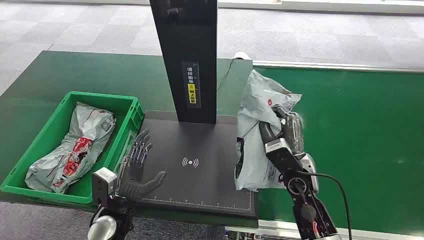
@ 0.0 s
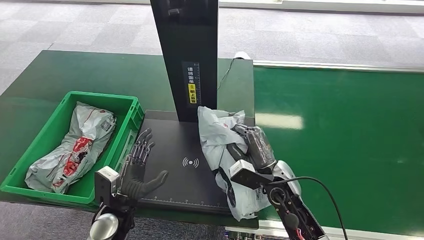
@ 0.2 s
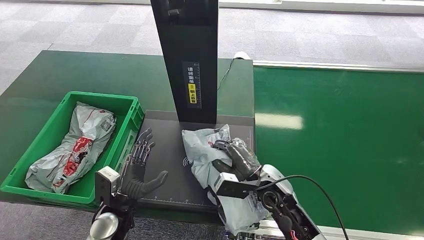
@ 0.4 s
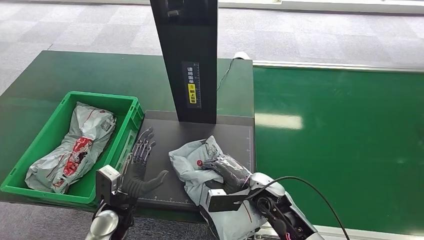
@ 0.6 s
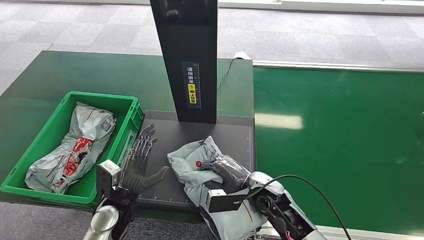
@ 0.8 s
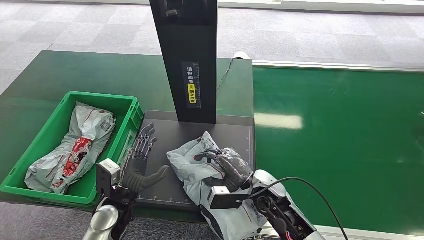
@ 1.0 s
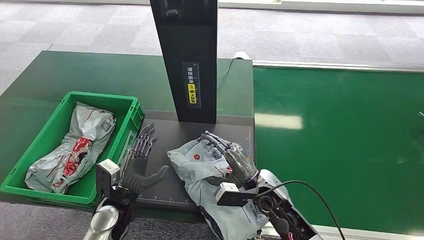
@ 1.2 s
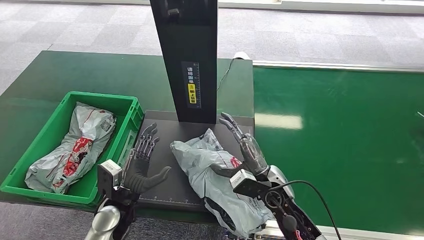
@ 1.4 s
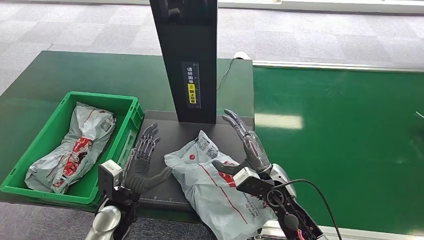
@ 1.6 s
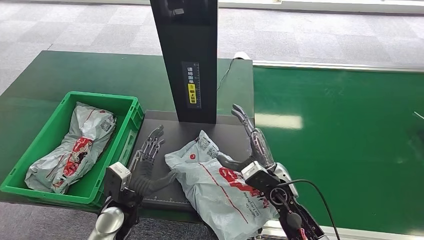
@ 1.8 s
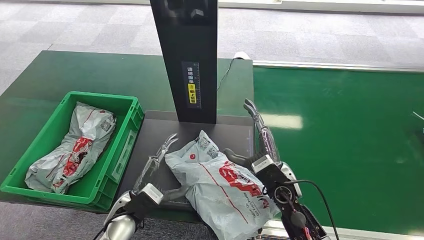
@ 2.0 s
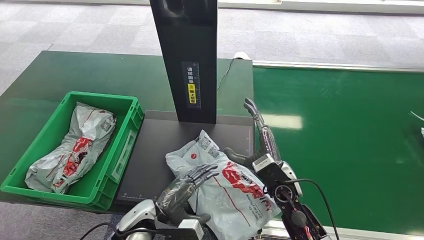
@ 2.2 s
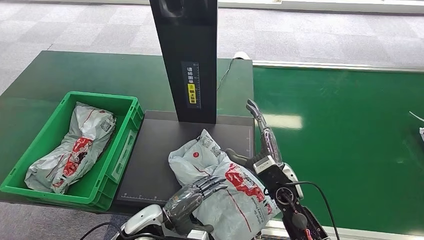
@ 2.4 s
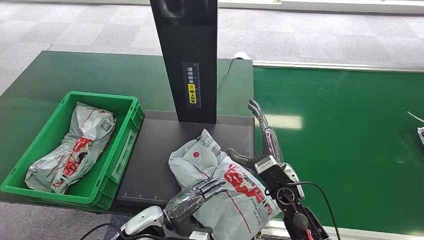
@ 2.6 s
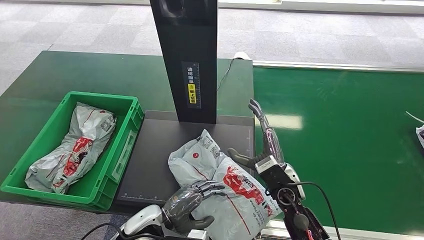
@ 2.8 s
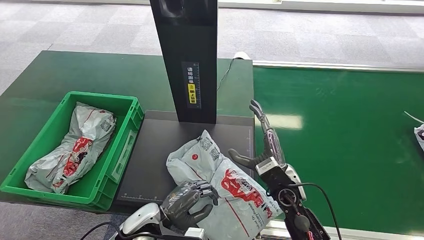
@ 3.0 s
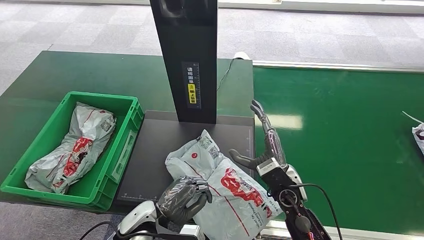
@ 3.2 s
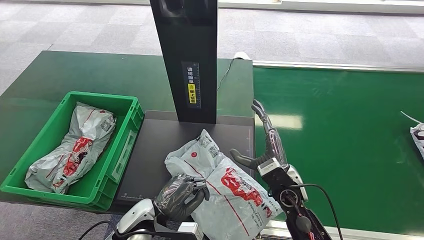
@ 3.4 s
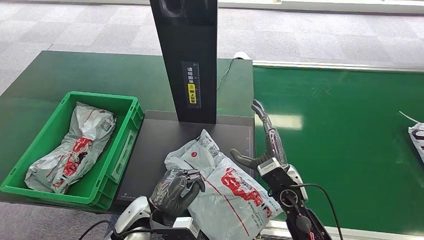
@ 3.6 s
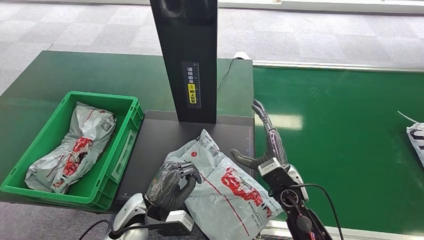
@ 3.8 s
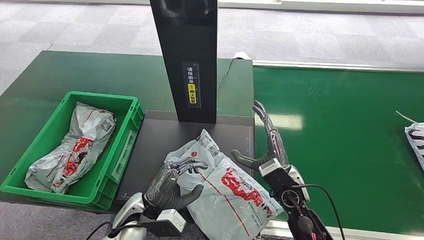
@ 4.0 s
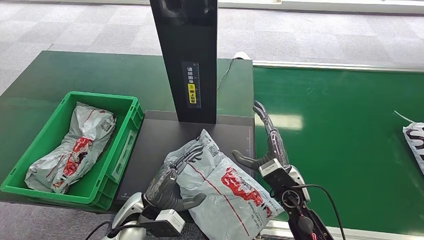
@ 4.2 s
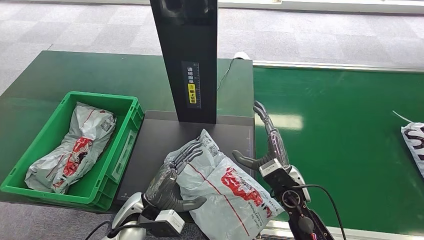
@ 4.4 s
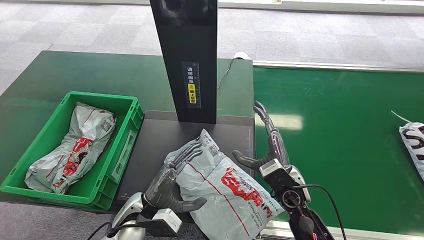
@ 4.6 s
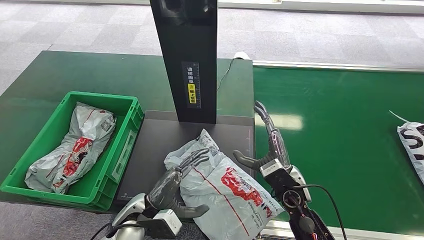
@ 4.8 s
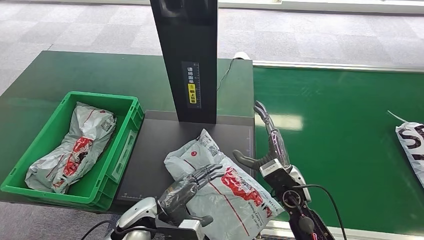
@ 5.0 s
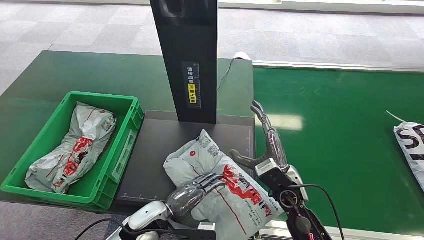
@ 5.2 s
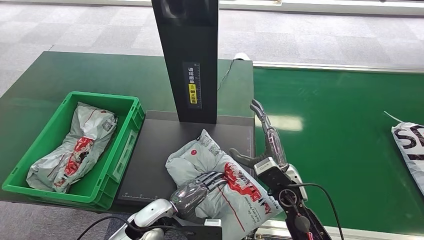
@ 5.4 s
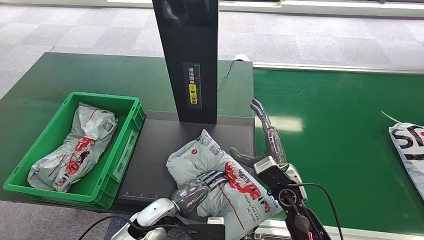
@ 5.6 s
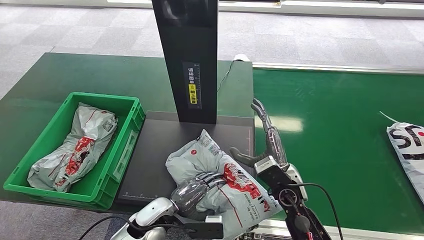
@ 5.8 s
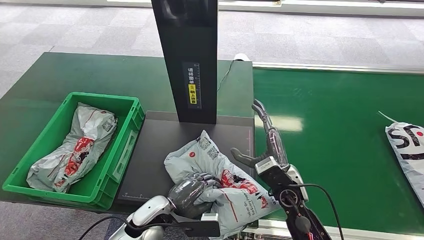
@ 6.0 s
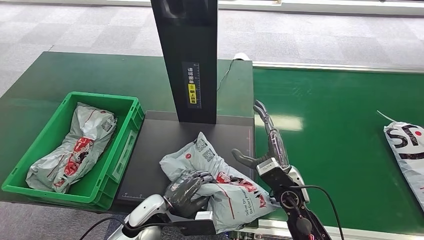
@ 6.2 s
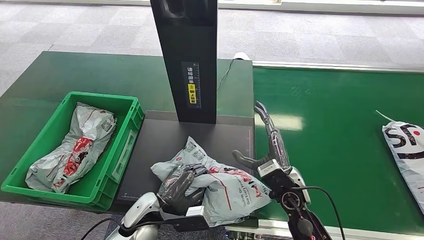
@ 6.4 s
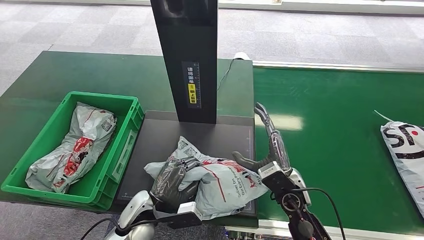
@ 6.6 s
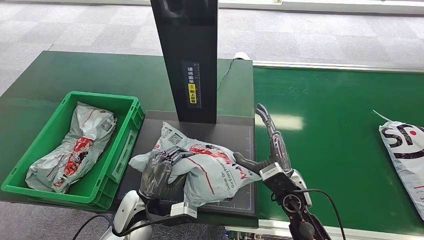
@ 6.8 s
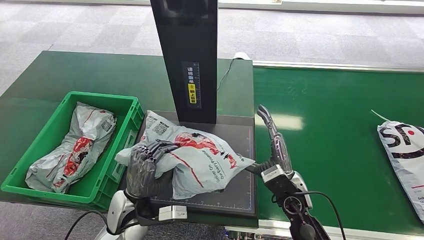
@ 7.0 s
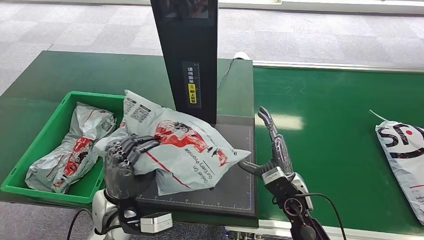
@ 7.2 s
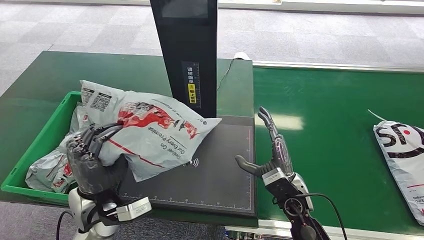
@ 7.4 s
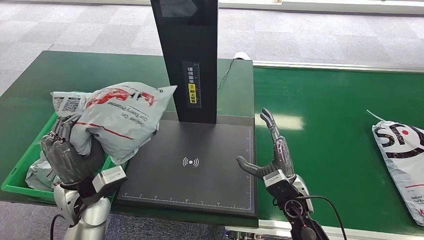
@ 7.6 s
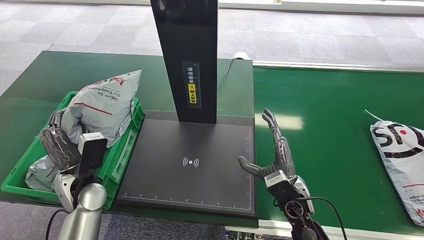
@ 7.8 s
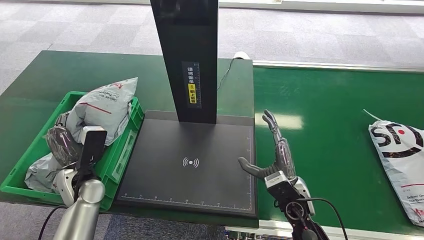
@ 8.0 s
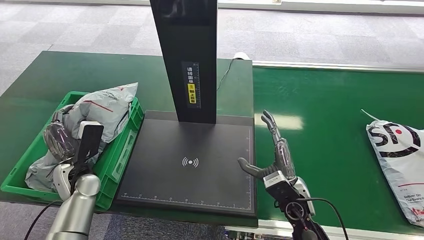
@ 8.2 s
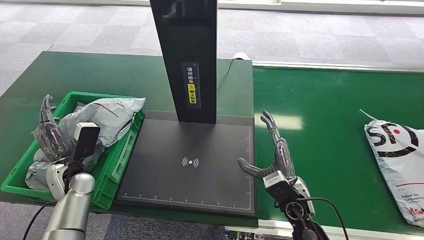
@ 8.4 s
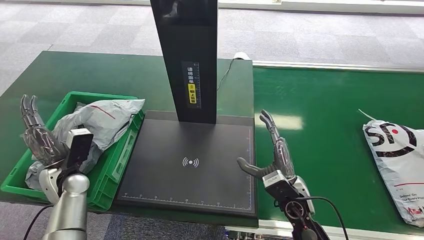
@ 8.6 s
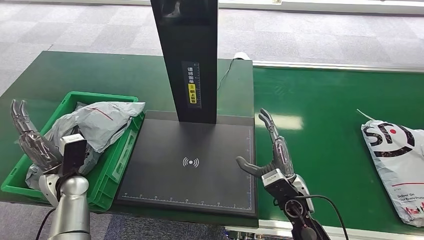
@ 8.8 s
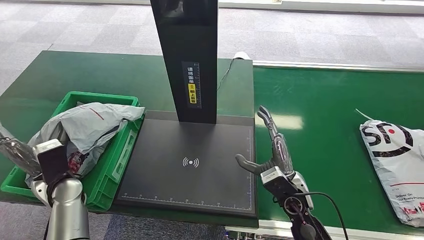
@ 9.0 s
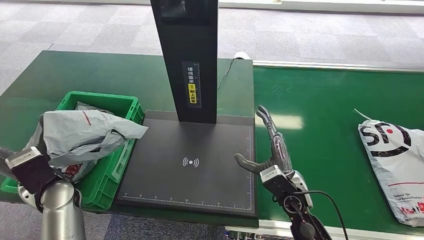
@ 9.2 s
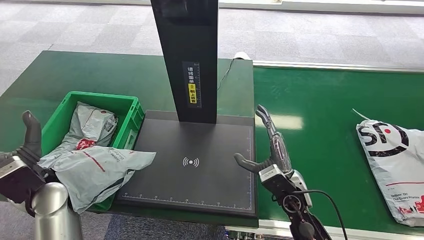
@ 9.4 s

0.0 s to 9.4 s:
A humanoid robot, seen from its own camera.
Step, 2.0 to 2.2 s: Place the package onto the inbound machine.
Step, 7.2 to 7.4 s: Pick up the package from the inbound machine.
1.6 to 3.2 s: The left hand shifts some 5 cm to the right.
7.8 to 9.4 s: The left hand shifts by about 5 cm.

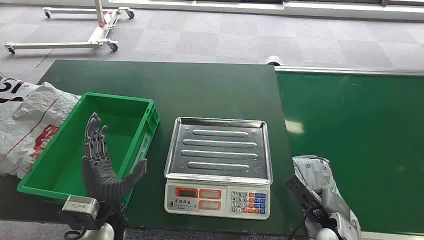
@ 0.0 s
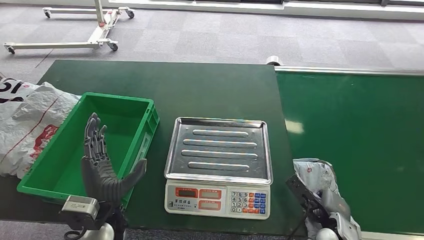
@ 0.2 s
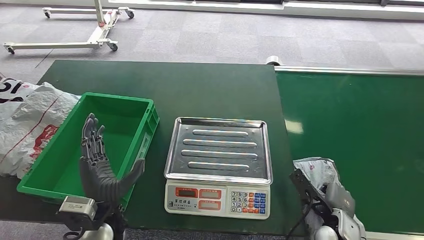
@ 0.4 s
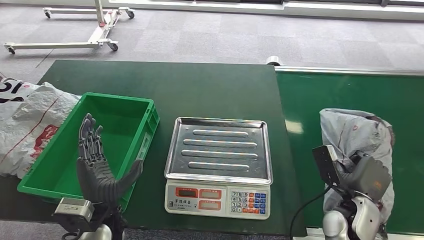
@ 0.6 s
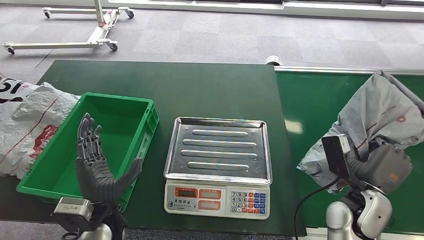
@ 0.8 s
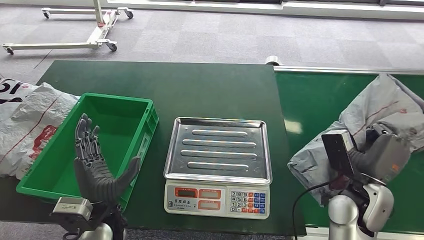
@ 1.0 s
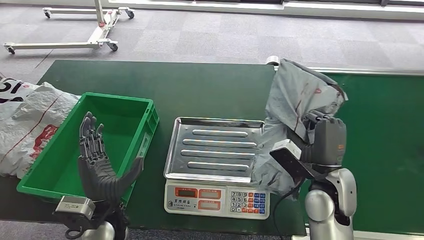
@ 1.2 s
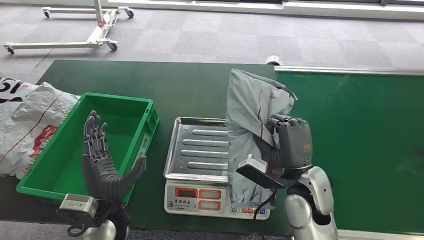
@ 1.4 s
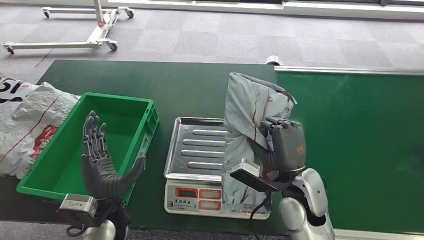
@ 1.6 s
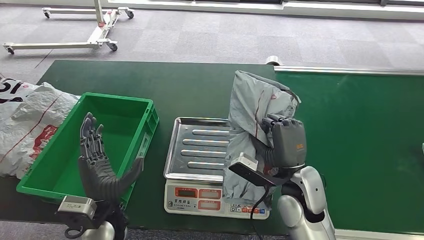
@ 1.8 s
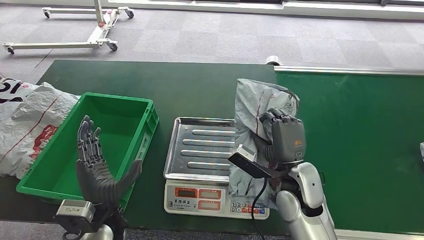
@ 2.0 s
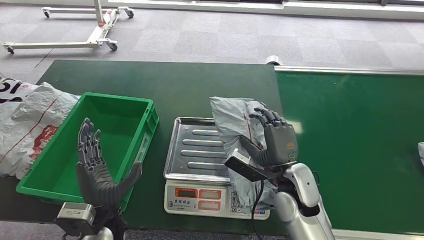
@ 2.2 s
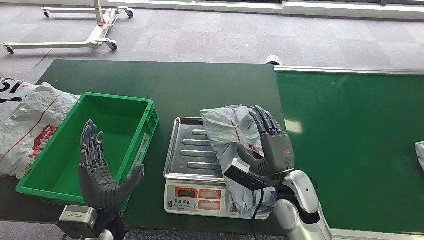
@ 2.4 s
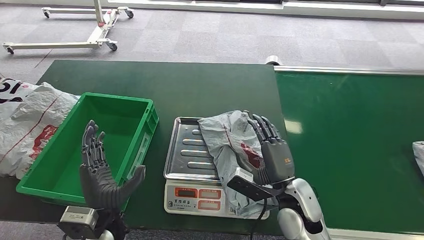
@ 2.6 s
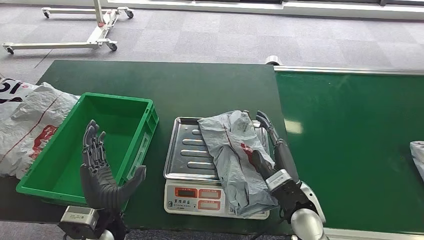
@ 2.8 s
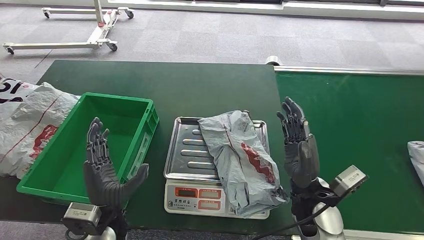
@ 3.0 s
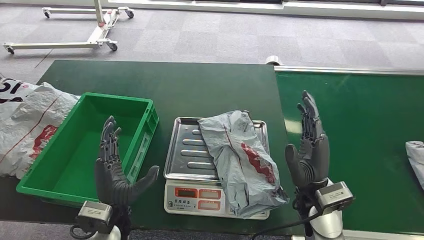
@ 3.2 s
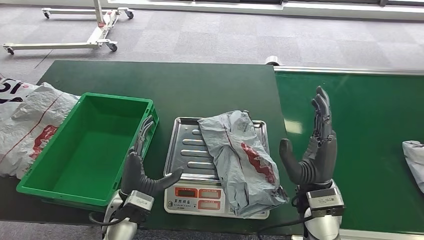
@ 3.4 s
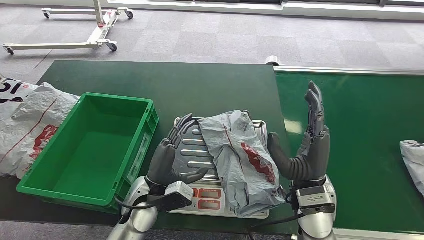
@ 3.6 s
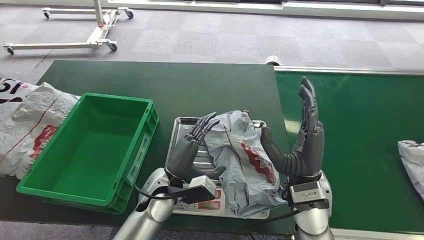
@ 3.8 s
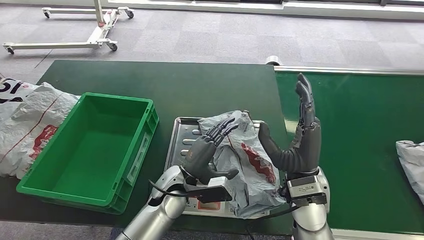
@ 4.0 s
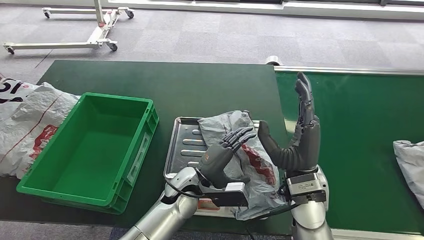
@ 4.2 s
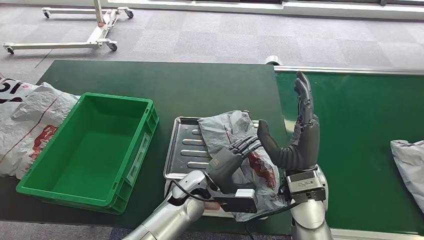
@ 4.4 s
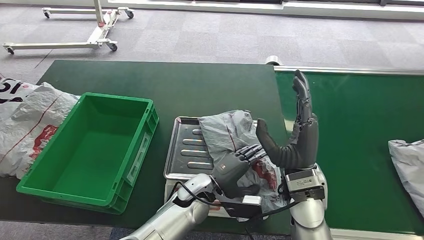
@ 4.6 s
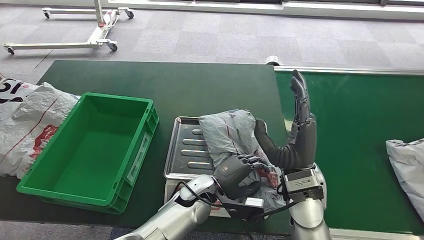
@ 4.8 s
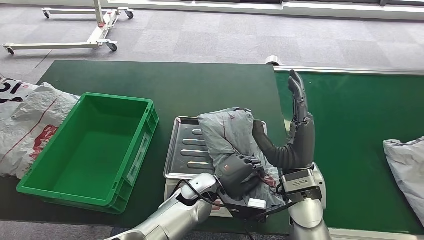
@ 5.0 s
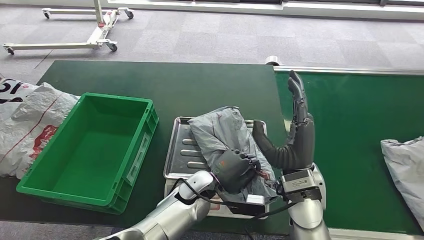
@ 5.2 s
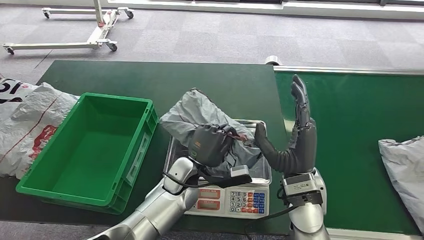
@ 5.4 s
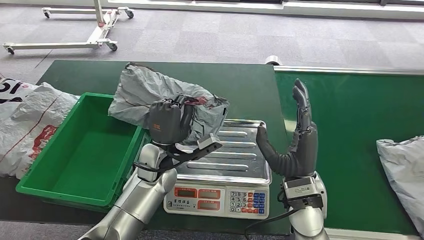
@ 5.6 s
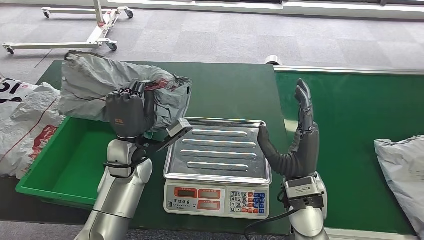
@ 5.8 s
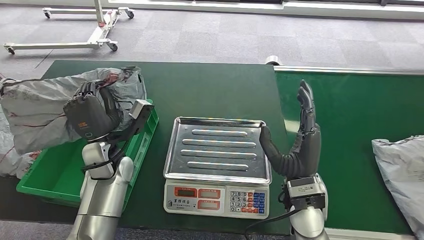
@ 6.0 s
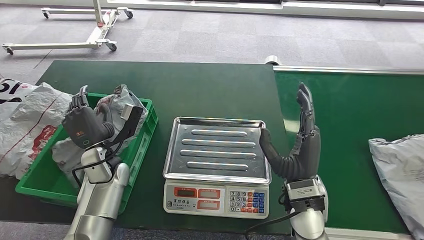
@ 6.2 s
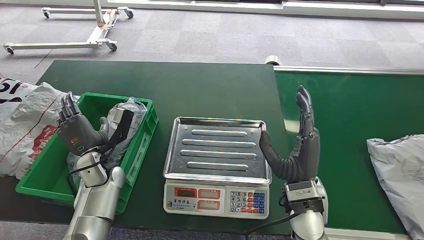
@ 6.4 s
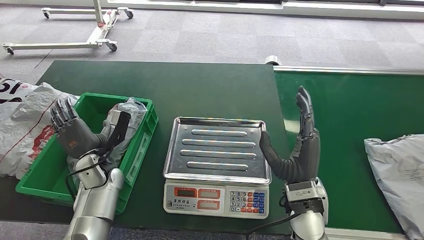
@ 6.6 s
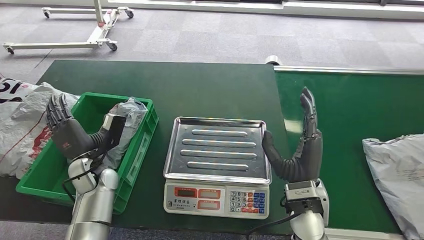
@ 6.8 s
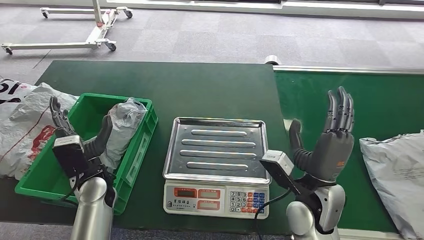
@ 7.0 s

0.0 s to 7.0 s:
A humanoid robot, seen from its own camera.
Step, 0.0 to 1.4 s: Pick up the package from the conveyor belt.
Step, 1.6 to 3.2 s: Place the package onto the inbound machine.
Step, 3.4 to 5.6 s: Pick up the package from the inbound machine.
Step, 5.8 to 7.0 s: Place the package into the parcel locker.
2.8 to 4.2 s: The right hand heads upward, covering about 5 cm. Meanwhile the left hand travels to the right and forward by approximately 20 cm.
